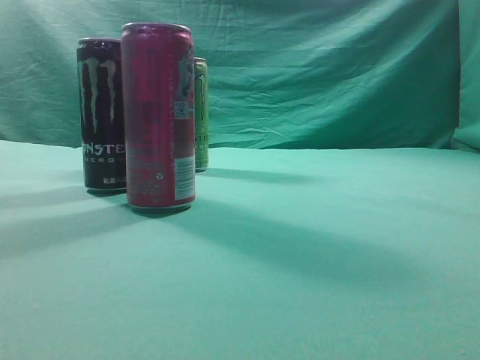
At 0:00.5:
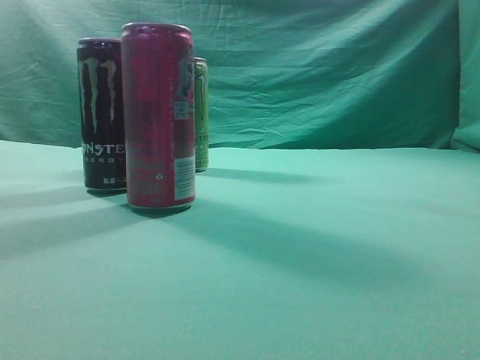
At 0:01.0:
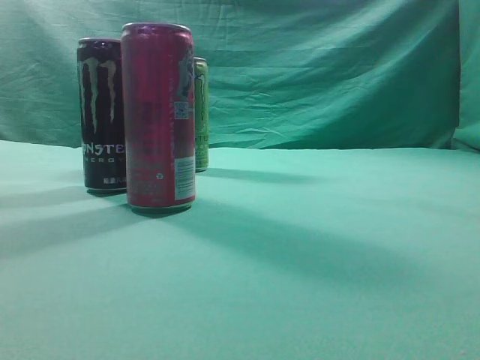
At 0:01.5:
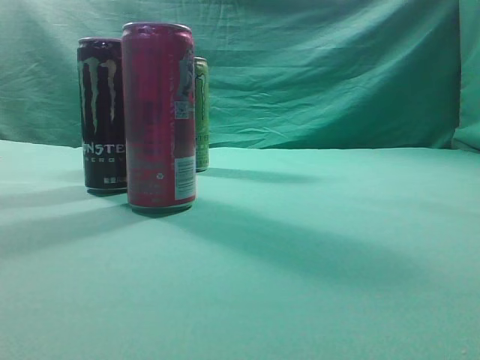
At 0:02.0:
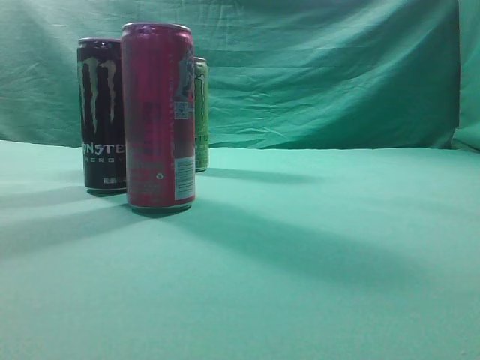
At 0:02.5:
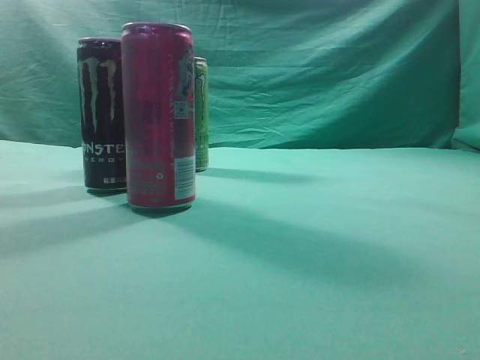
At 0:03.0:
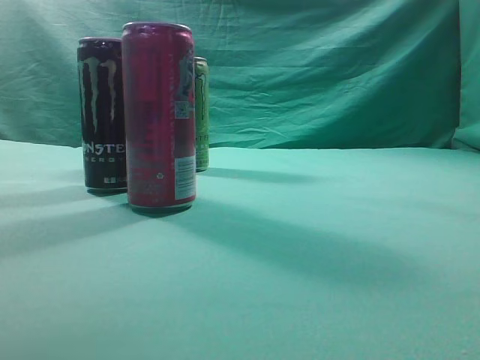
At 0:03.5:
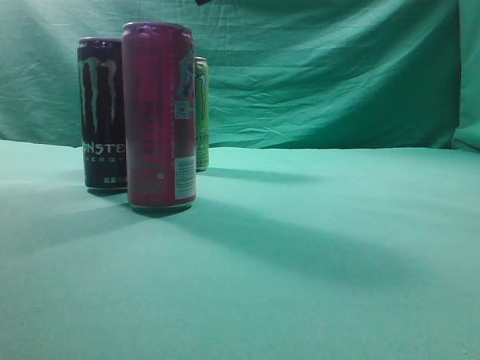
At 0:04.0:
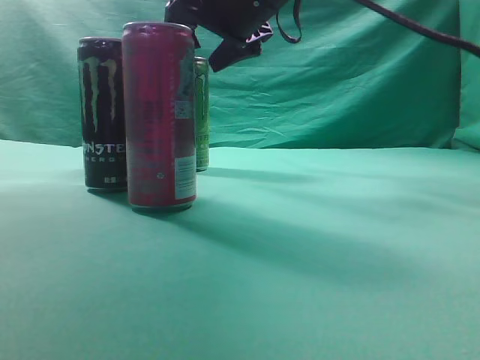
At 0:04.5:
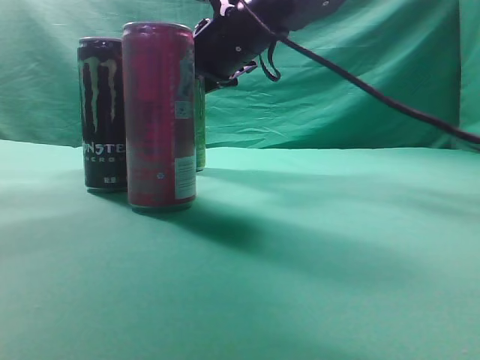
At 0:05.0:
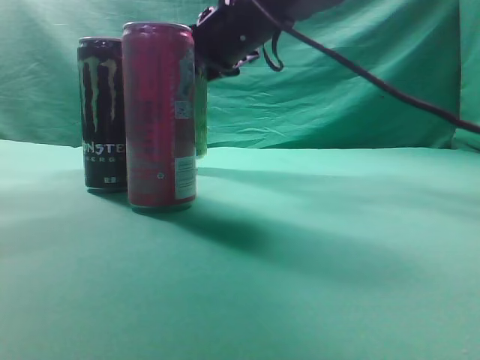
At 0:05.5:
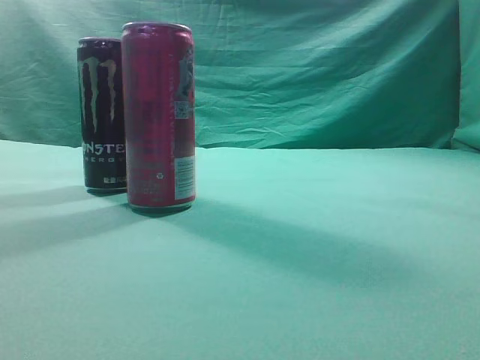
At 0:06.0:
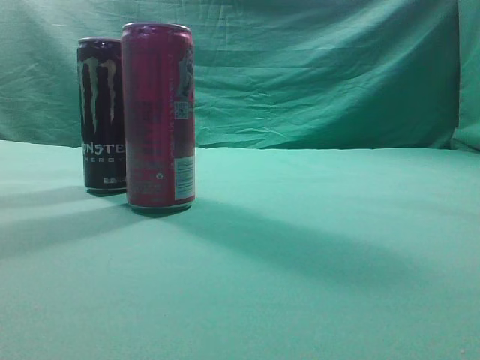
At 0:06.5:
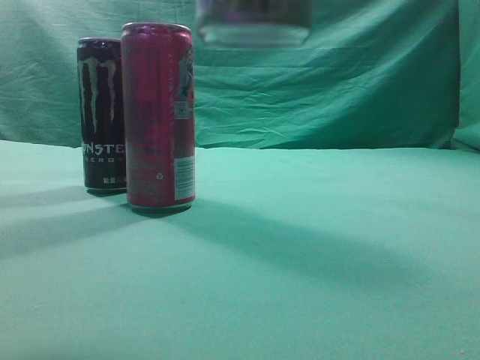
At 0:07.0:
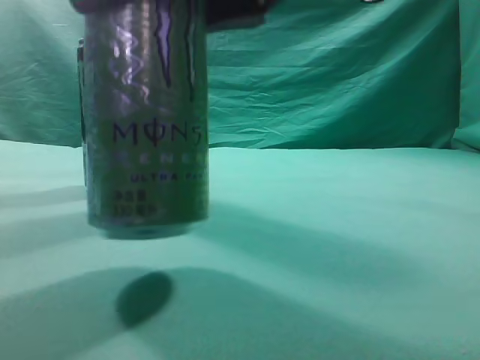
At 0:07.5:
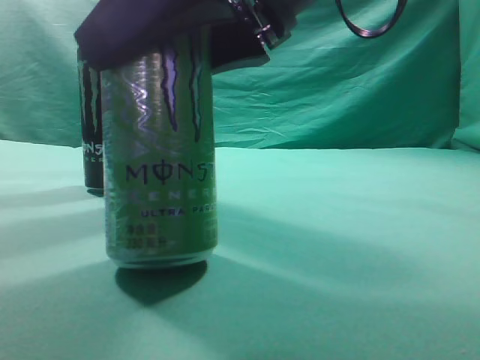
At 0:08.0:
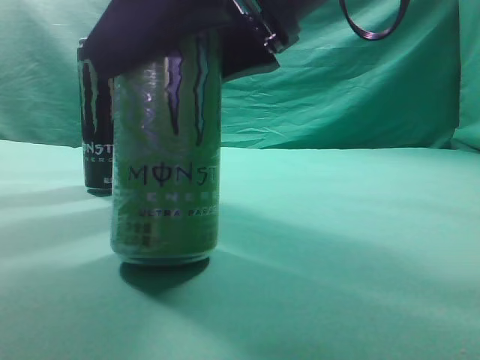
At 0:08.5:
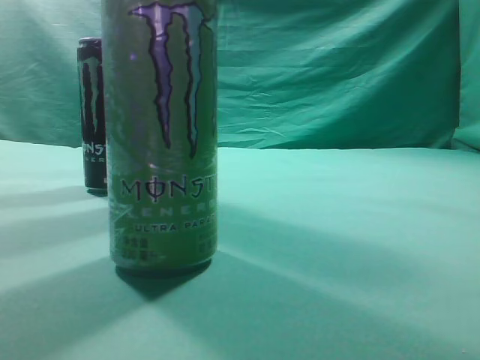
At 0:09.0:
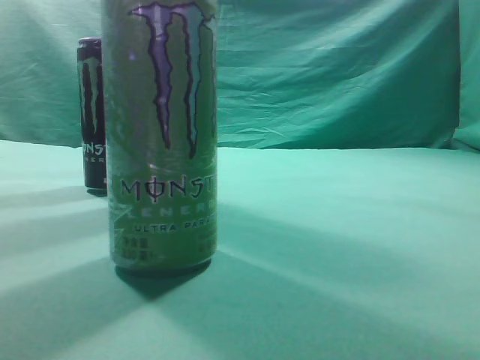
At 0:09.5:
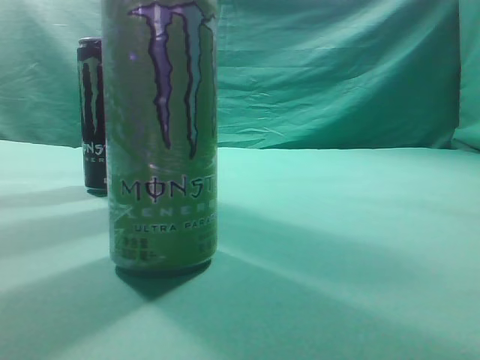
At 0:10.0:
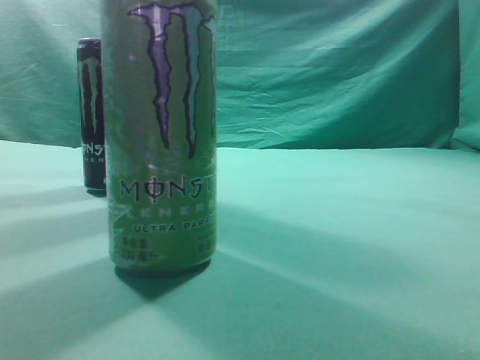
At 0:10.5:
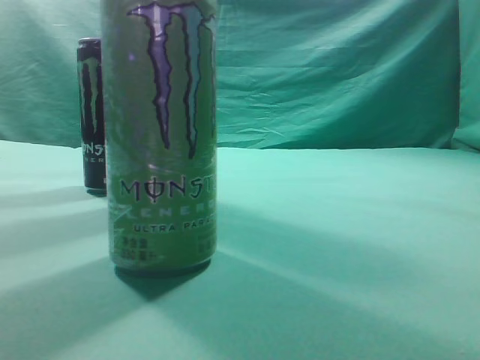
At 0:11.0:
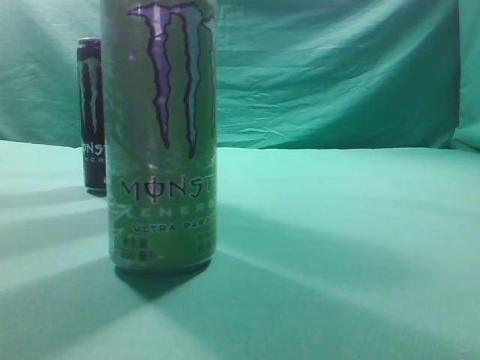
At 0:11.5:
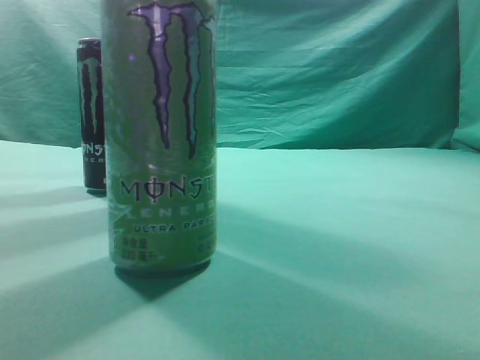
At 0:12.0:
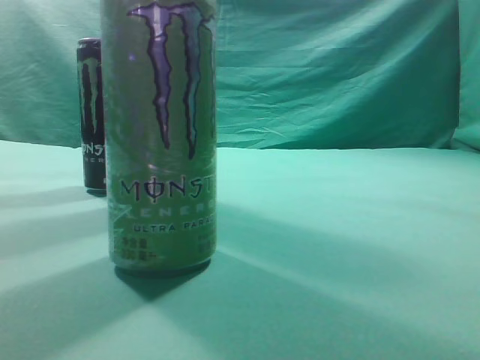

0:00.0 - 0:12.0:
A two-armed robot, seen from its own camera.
Task of the whole recording: move one drink among three beverages.
Step, 0:00.0 - 0:05.0: Grasp the beverage bottle placed at the back of the desk.
Step, 0:05.5 - 0:08.5: Place the beverage bottle to the front of the table.
0:02.0 - 0:04.0: The right gripper shifts about 50 cm forward and to the left, and opens up.
0:04.0 - 0:06.0: The right gripper goes approximately 30 cm backward, upward and to the right.
0:06.0 - 0:08.0: The right gripper is displaced downward and to the left by about 20 cm.
0:08.0 - 0:10.0: The right gripper is displaced to the right, upward and backward by some 30 cm, and closes up.
